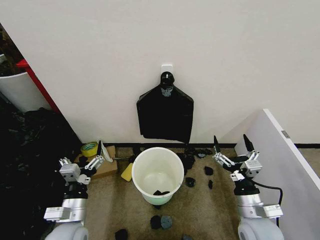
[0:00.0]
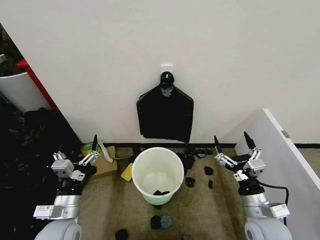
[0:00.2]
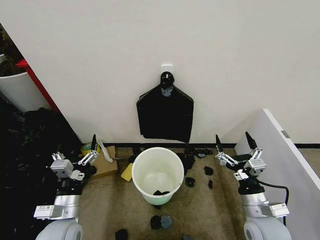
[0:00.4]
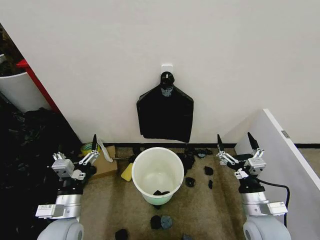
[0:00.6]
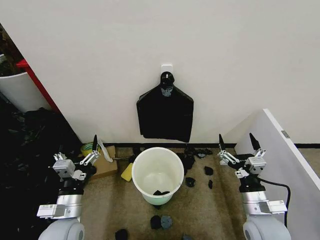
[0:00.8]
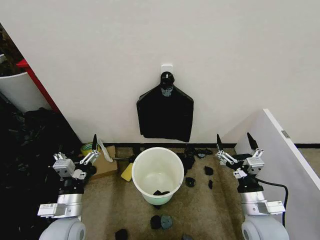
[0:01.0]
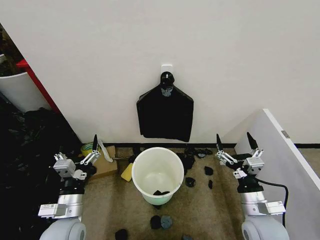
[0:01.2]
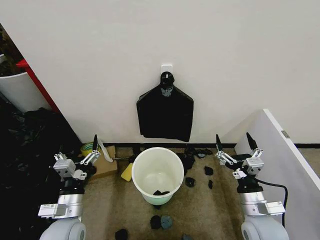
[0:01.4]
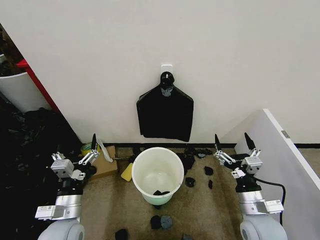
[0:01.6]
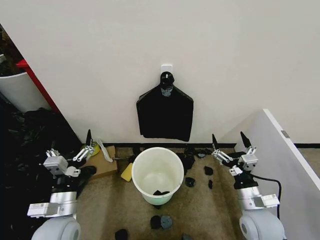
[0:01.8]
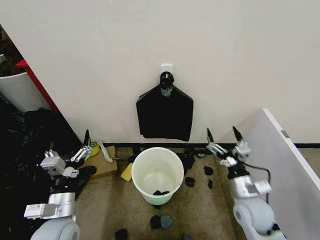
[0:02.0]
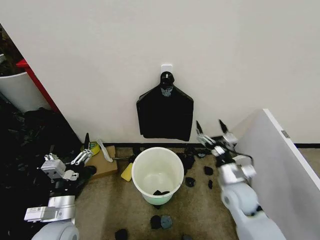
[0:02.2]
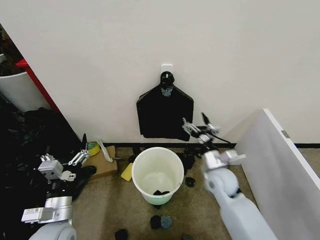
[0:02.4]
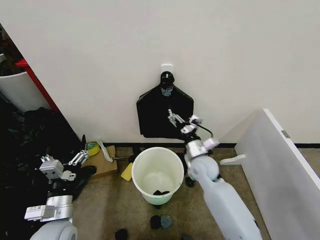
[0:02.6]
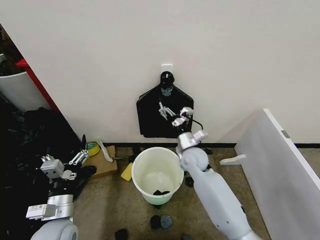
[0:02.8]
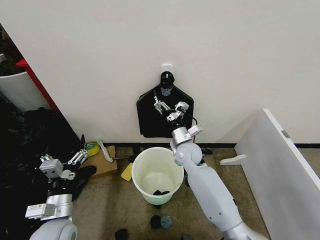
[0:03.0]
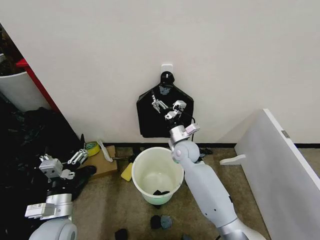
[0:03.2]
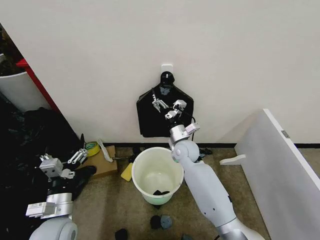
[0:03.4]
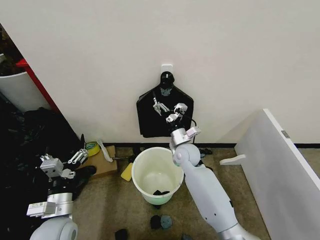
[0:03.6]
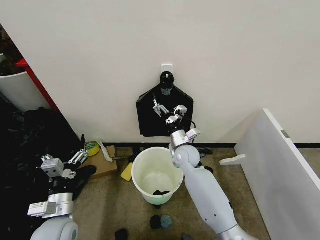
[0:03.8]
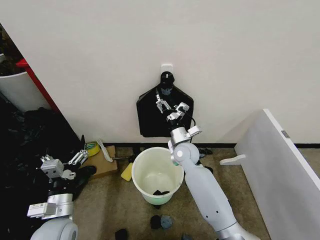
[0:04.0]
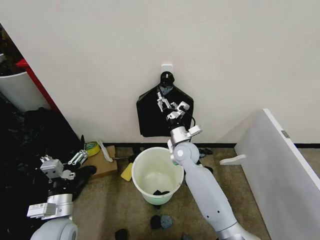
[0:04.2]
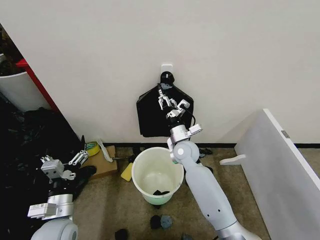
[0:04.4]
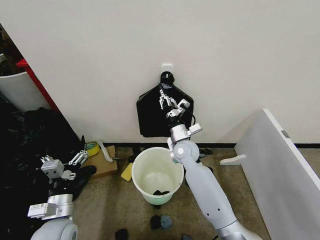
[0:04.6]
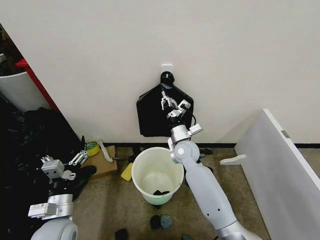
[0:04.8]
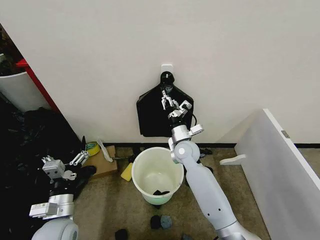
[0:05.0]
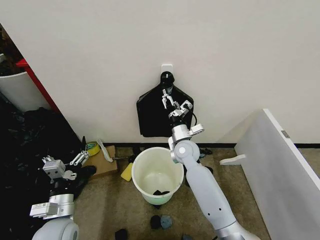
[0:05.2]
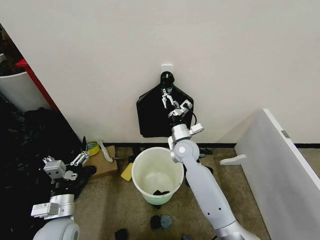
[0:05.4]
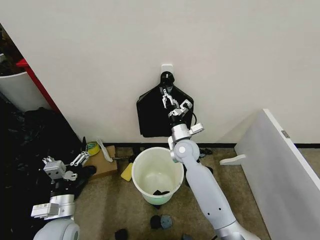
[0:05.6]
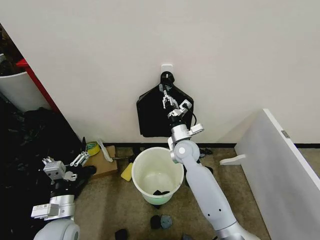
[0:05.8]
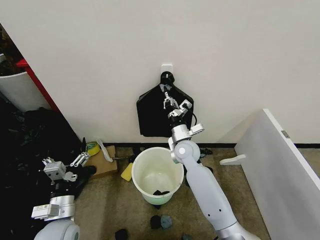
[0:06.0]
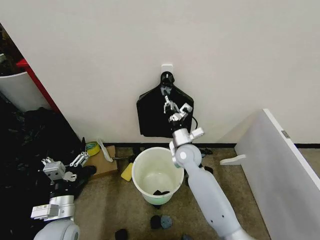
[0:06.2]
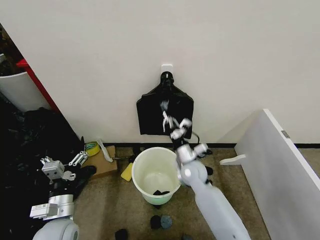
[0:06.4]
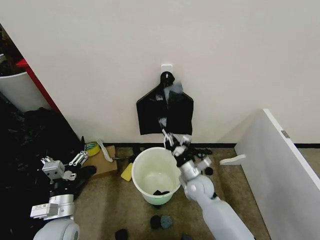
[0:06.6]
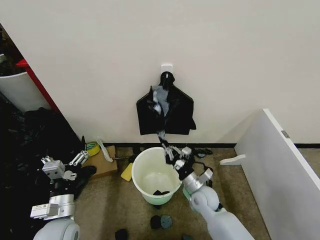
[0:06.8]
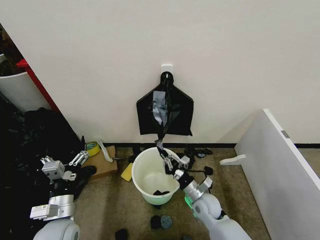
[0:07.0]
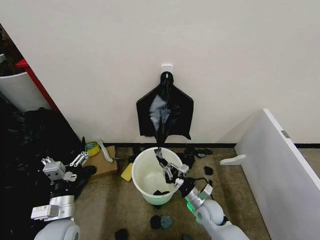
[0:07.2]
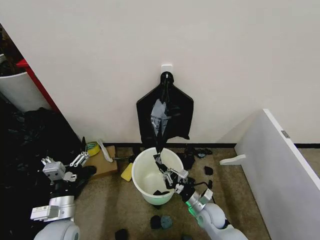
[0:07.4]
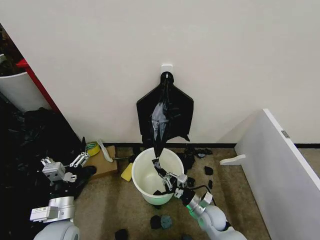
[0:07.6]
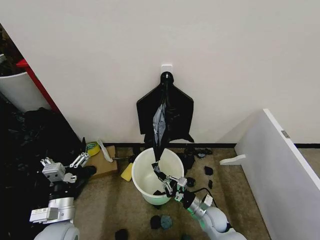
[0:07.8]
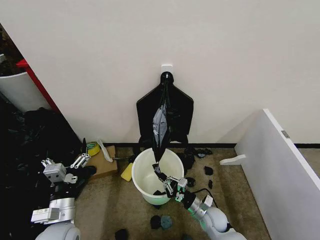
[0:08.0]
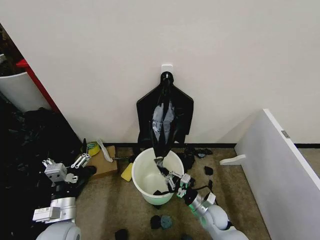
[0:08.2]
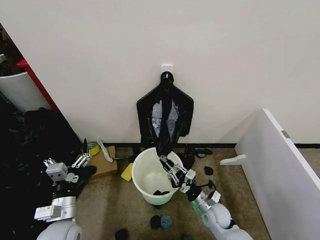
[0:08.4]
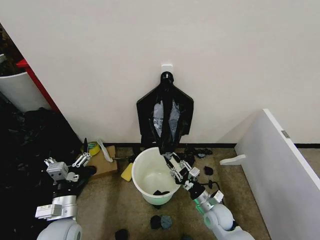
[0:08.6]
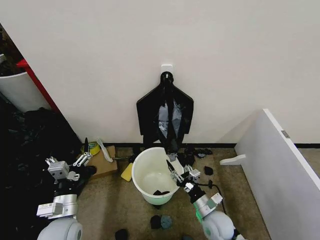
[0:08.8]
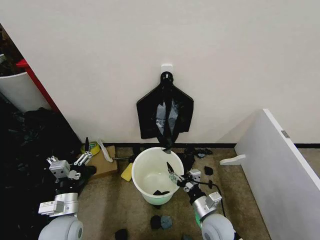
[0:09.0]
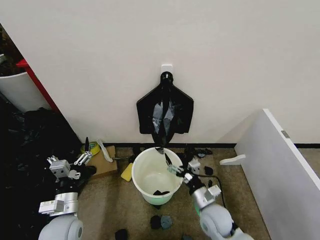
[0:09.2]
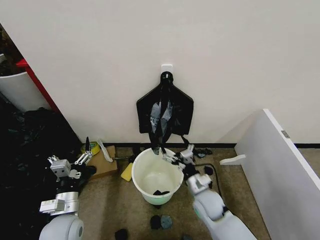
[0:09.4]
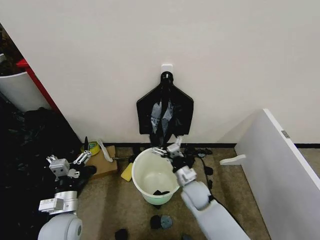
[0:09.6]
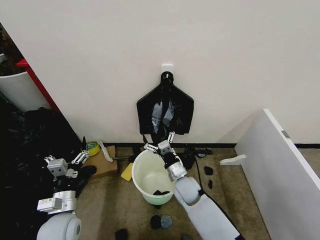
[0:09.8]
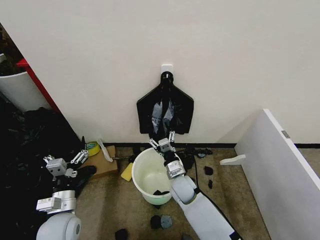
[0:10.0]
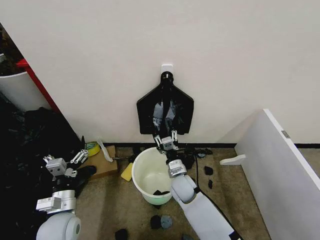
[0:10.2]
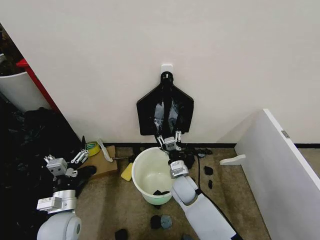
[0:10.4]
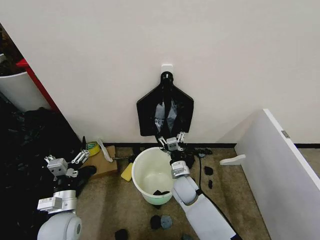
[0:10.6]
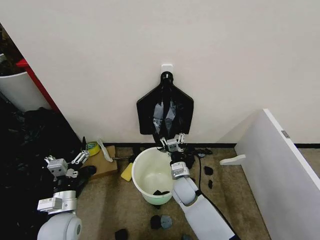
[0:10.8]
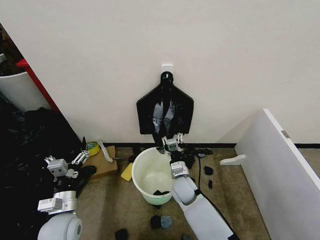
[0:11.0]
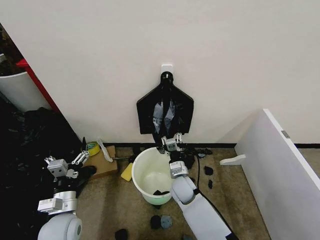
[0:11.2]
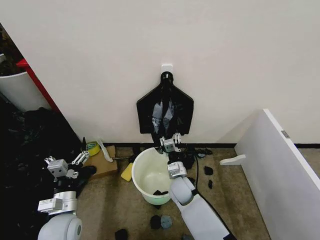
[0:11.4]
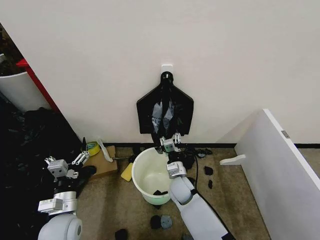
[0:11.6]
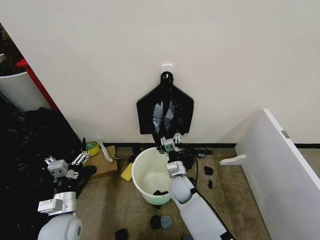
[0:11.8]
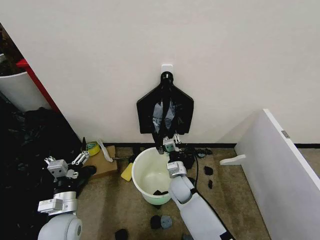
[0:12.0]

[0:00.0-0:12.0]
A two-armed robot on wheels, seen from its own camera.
Task of the whole recording: Place the garbage bag over the trash bin.
0:01.6 to 0:03.0: The right gripper is displaced forward and to the left by about 30 cm.
0:03.0 to 0:04.4: The right gripper closes up.
0:04.4 to 0:06.0: The right gripper closes.
0:06.0 to 0:07.6: The right gripper heads downward, backward and to the right, covering some 30 cm.
0:07.6 to 0:09.0: The right gripper is displaced upward and backward by some 10 cm, and opens its fingers.
0:09.0 to 0:10.4: The right gripper is displaced forward and to the left by approximately 15 cm.
0:10.4 to 0:12.0: There are only small adjustments of the grippers.

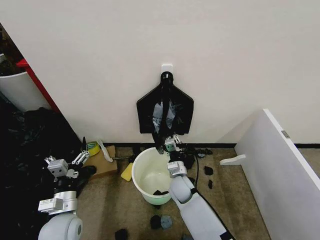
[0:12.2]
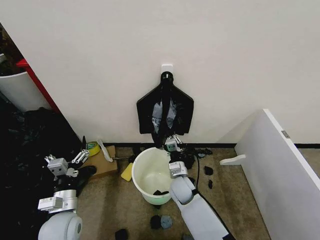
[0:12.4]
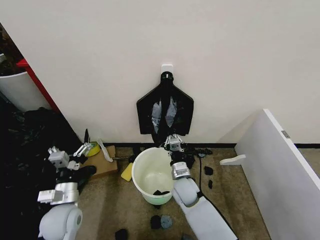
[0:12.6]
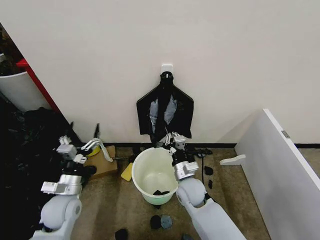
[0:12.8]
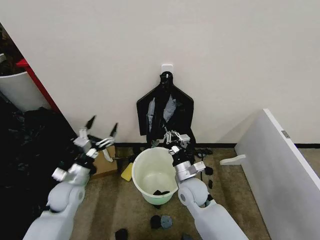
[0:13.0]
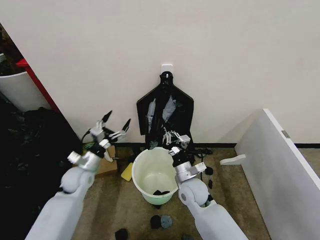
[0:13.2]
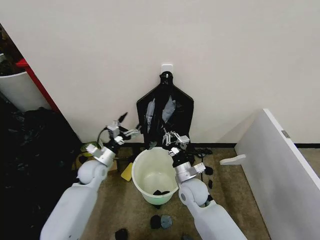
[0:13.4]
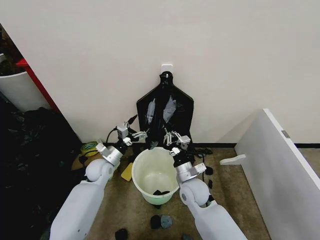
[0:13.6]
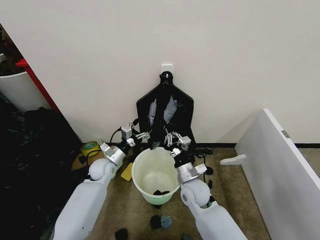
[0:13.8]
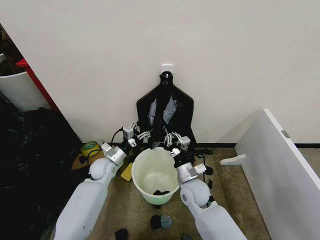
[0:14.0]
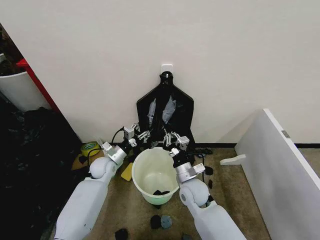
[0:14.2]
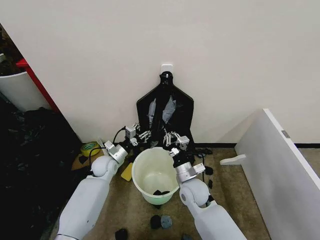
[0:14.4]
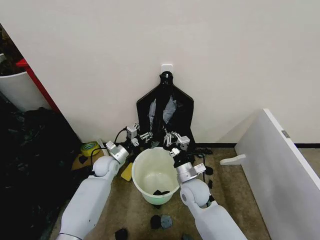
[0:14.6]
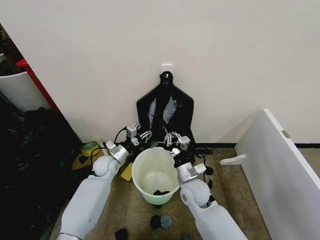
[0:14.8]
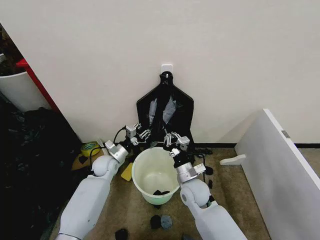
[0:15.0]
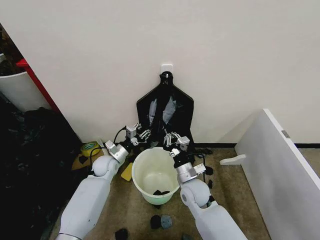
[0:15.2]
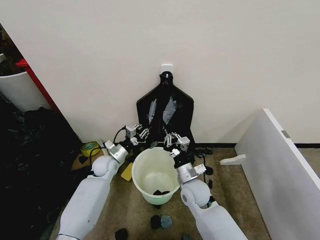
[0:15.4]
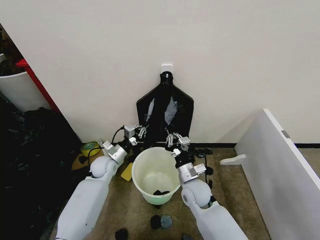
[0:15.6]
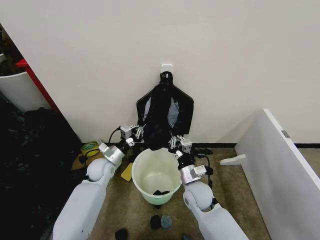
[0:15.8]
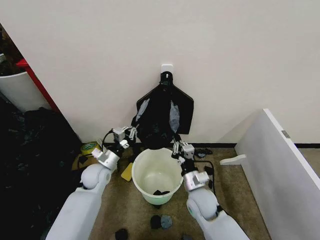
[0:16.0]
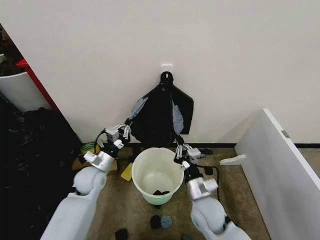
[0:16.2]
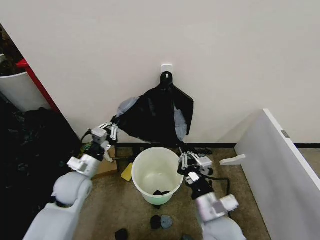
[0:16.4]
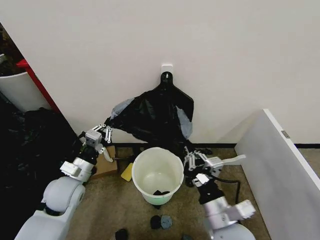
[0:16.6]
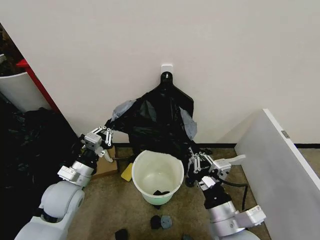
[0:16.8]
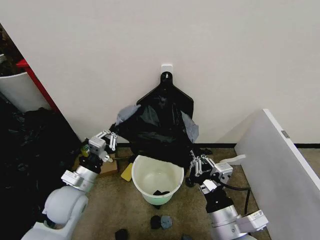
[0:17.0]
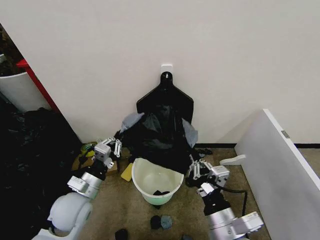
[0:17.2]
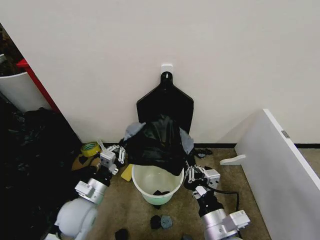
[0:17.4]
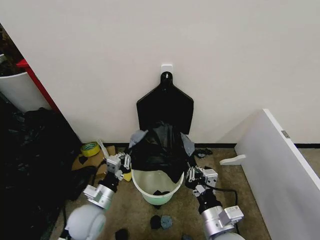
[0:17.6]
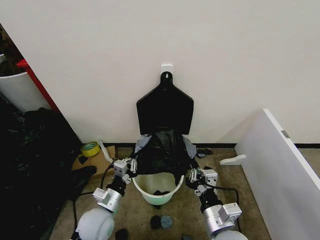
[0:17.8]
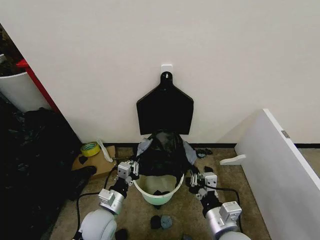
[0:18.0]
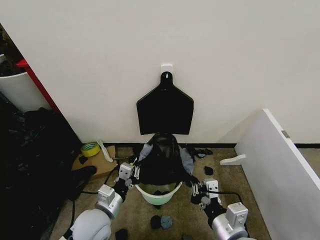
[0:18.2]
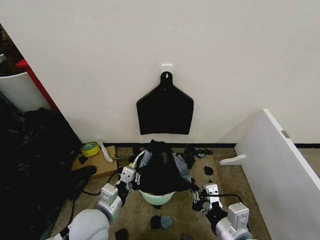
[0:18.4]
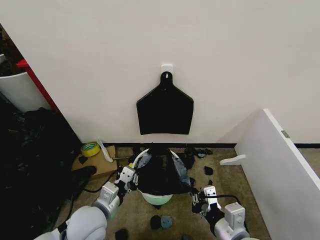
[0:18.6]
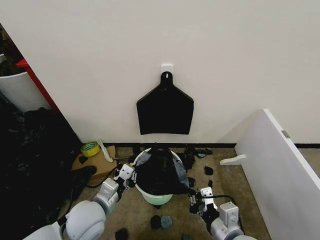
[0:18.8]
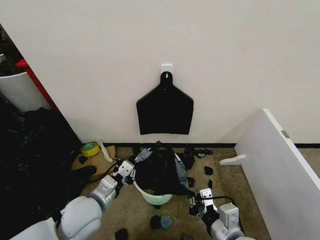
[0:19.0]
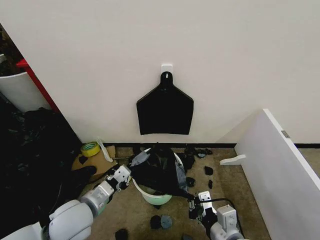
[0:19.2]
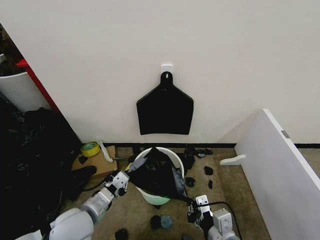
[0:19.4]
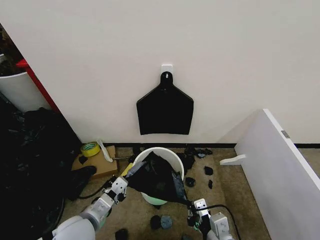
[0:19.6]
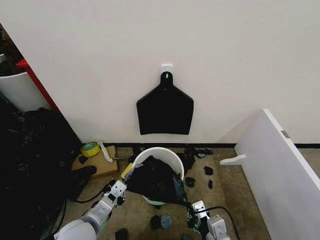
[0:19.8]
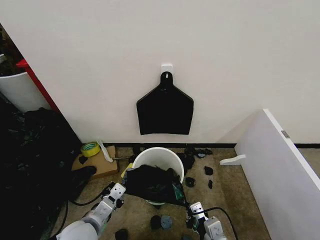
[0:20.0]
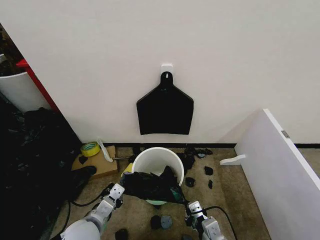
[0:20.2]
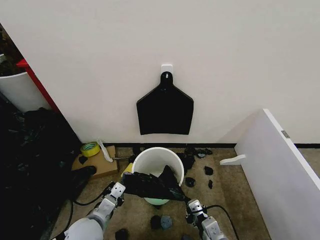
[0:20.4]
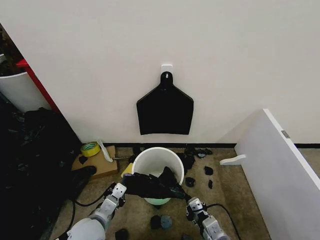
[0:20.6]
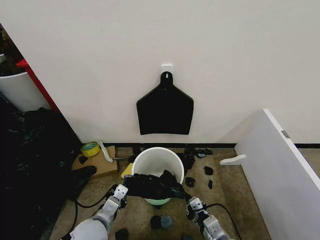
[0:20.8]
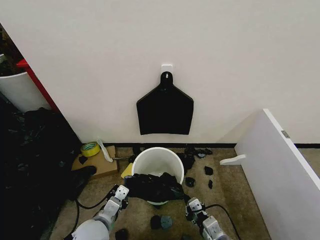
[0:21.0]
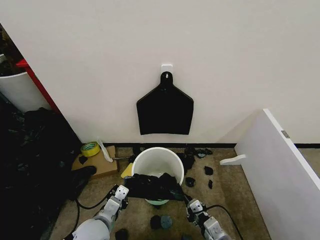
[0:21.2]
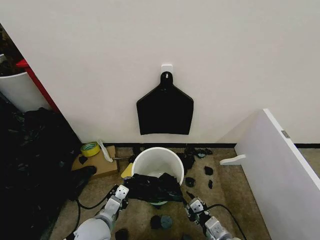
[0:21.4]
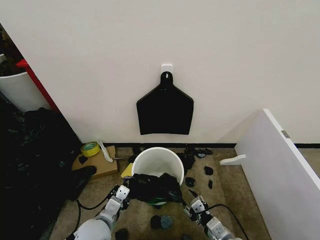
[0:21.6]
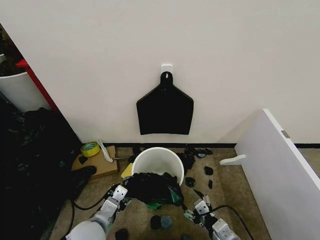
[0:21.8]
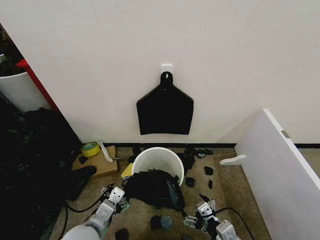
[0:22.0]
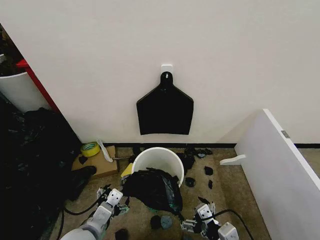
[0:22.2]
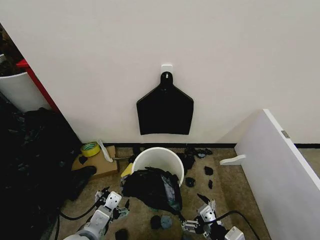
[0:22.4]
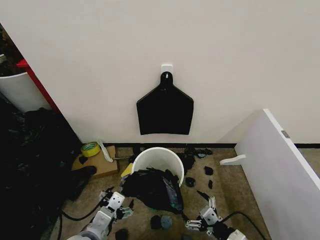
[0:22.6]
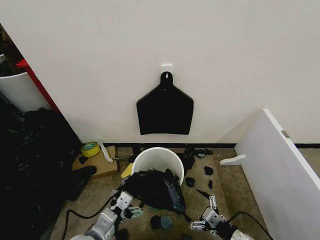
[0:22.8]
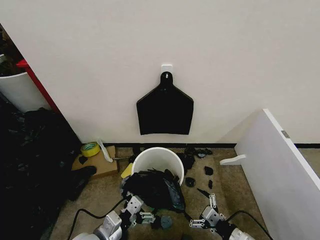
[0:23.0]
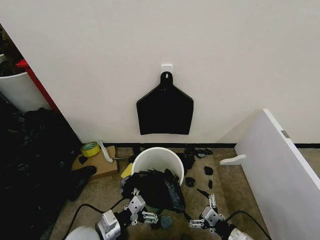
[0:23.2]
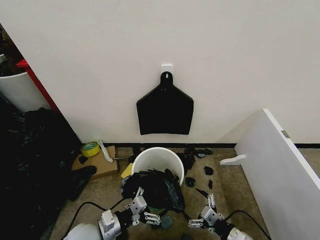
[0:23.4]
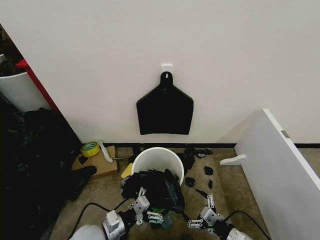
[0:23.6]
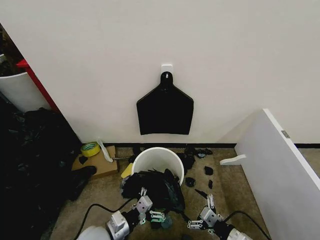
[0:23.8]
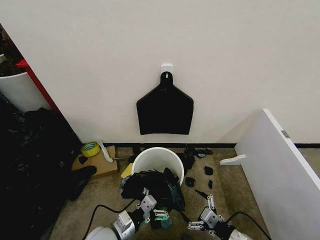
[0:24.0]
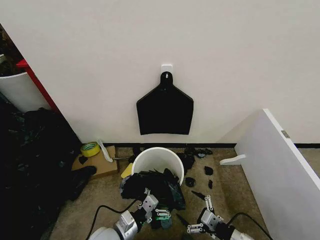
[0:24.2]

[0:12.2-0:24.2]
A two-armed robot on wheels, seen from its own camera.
Task of the whole recording: Place the garbage bag over the trash bin.
0:12.2 to 0:13.8: The left gripper heads forward, covering approximately 20 cm. The right gripper heads upward, covering some 5 cm.
0:13.8 to 0:15.2: The left gripper closes up.
0:15.2 to 0:16.6: Both grippers travel together backward and upward, about 20 cm. The left gripper closes its fingers.
0:16.6 to 0:18.2: The right gripper shifts by approximately 5 cm. Meanwhile the left gripper is displaced backward and to the right by approximately 15 cm.
0:18.2 to 0:19.8: The left gripper moves roughly 5 cm; the right gripper shifts roughly 5 cm downward.
0:19.8 to 0:21.2: Both grippers move downward, approximately 5 cm.
0:21.2 to 0:22.6: The right gripper goes approximately 5 cm upward, and opens; the left gripper moves upward and backward, about 10 cm, and opens up.
0:22.6 to 0:24.2: The left gripper goes some 10 cm downward, while the right gripper shifts roughly 5 cm downward.
